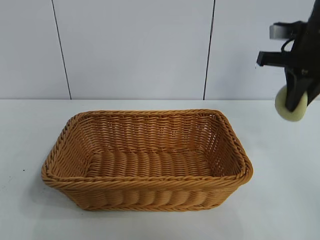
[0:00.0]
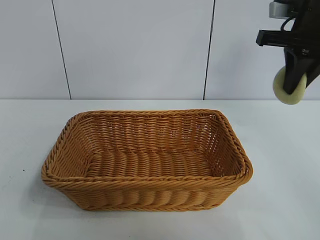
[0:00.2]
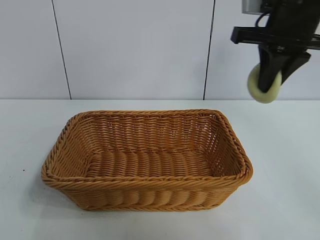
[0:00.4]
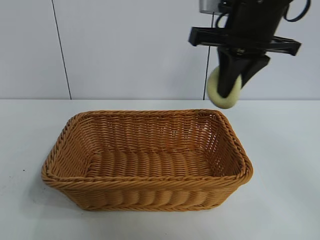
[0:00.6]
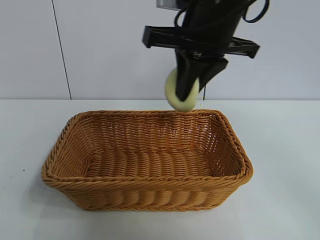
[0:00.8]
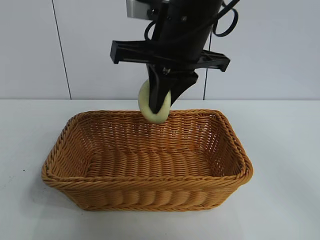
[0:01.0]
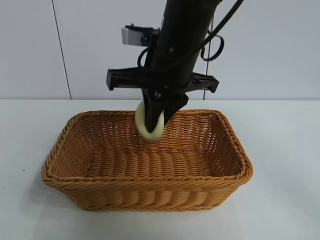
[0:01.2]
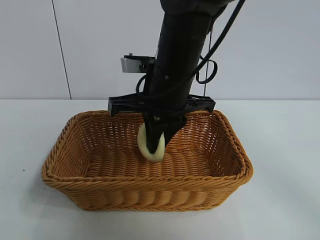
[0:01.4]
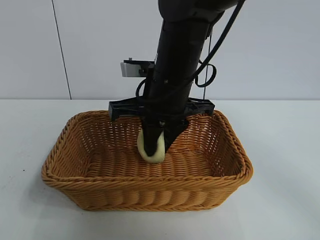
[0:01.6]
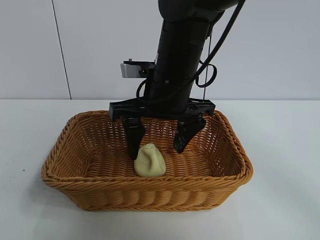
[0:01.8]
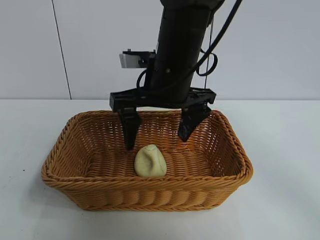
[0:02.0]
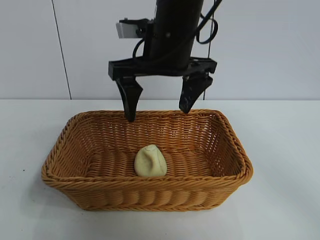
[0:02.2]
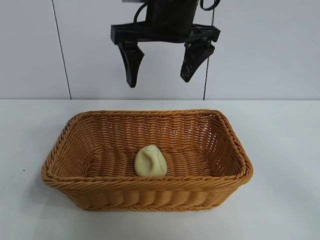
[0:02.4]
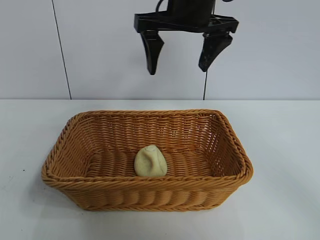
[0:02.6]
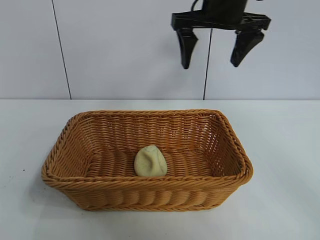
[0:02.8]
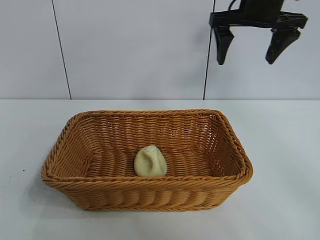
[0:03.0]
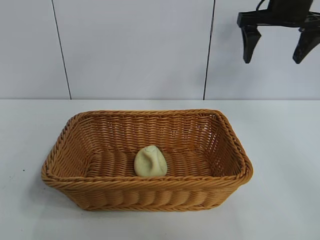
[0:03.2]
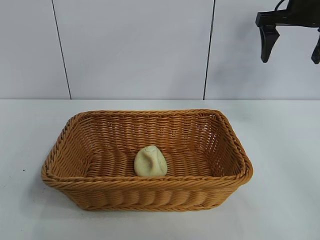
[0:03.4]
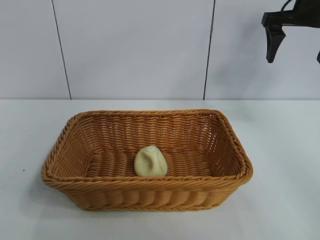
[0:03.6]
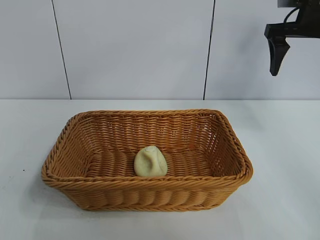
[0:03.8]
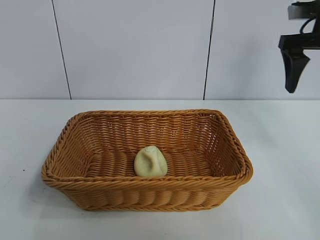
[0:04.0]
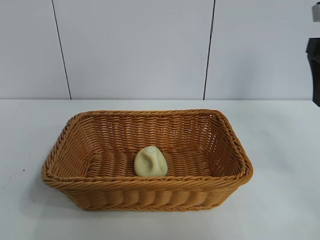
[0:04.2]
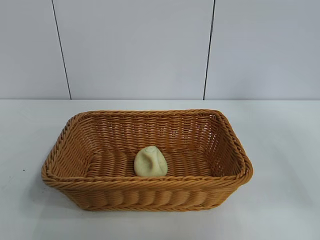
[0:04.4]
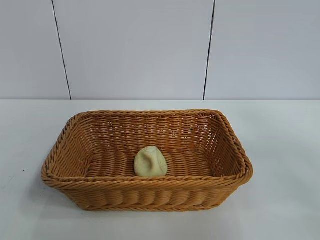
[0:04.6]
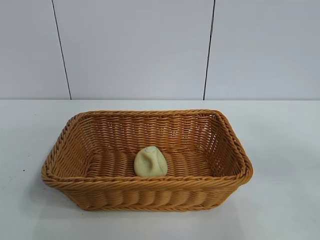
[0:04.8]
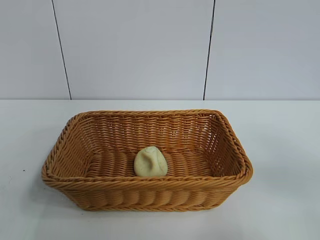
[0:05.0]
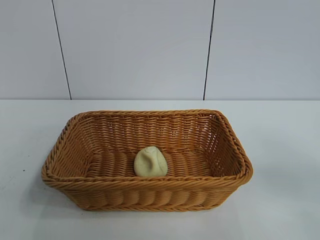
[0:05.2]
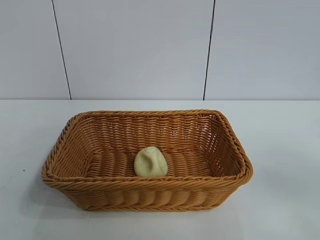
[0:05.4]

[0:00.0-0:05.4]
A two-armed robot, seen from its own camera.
Task of the whole recording: pick up the egg yolk pastry and put it into the basket.
Step, 0:00.0 to 0:01.6: Place the egg yolk pastry in the basket with right gripper.
